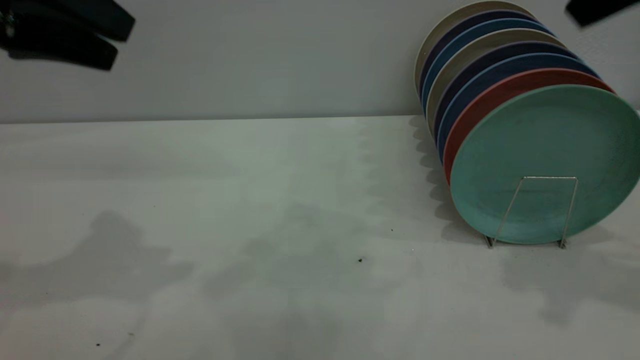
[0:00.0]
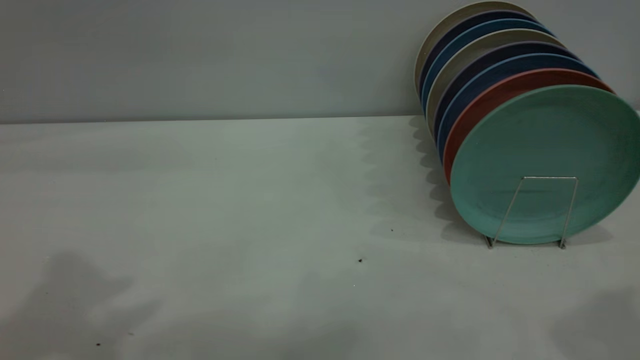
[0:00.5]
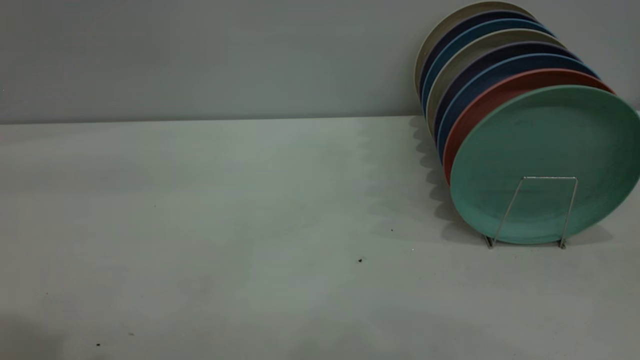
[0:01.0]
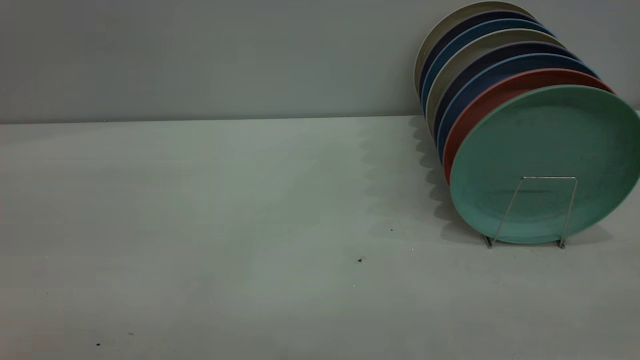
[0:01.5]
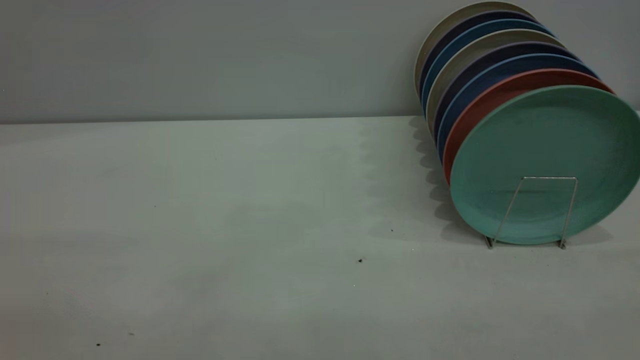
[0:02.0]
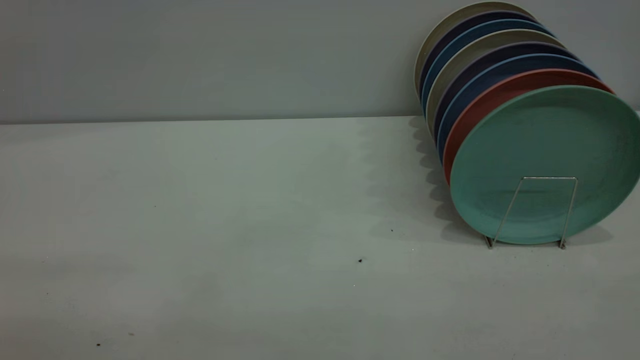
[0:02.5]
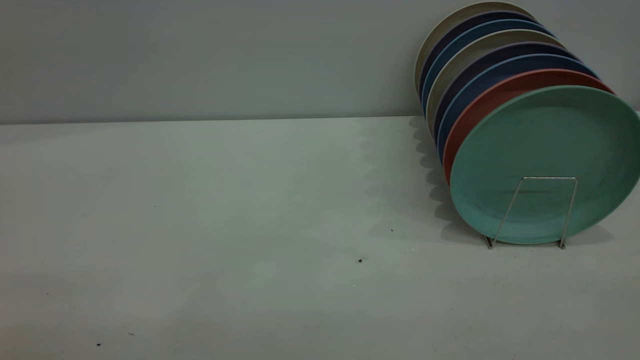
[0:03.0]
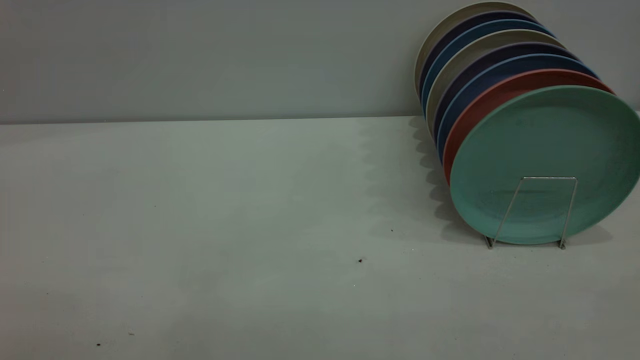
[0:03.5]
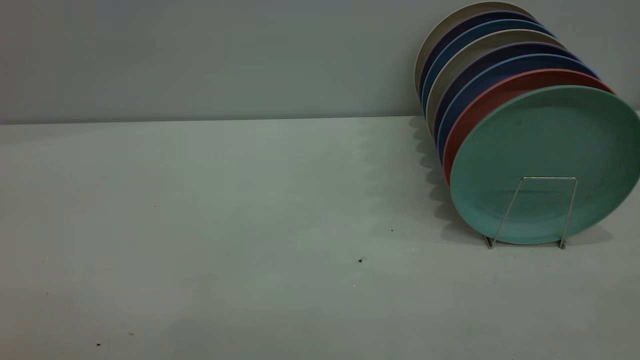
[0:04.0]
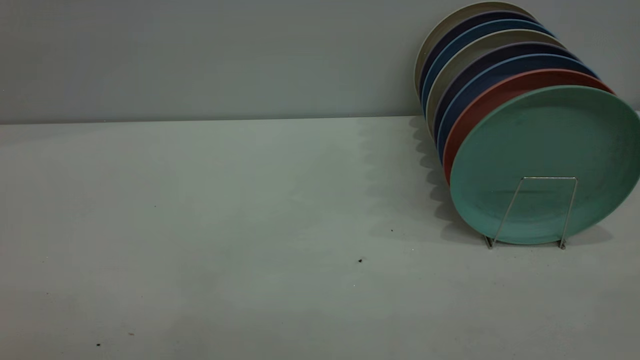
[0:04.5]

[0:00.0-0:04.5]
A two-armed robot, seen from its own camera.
Task of the whole recording: the left gripper grasp the green plate, the left gripper pass the green plate to the right gripper, and the right gripper place the green plate on the plate rack.
0:00.0 to 0:02.0: The left gripper moves backward, some 25 cm.
